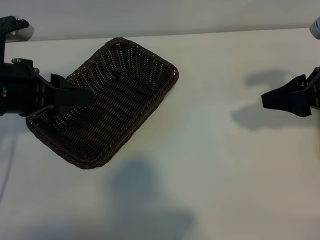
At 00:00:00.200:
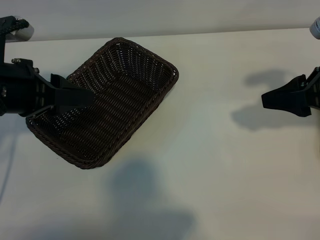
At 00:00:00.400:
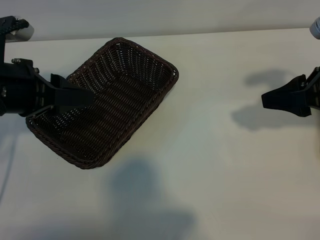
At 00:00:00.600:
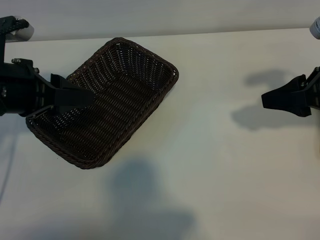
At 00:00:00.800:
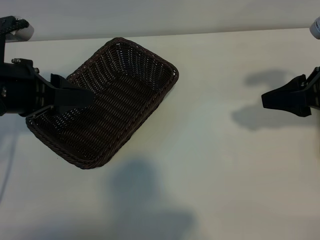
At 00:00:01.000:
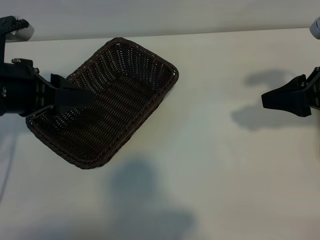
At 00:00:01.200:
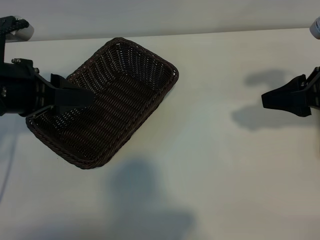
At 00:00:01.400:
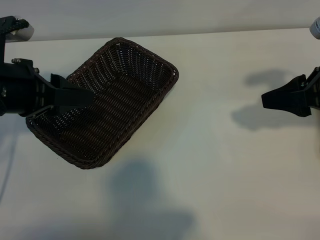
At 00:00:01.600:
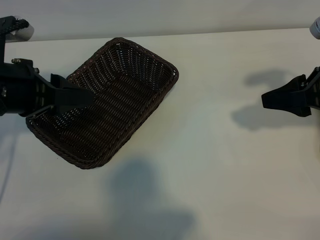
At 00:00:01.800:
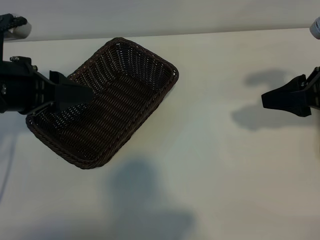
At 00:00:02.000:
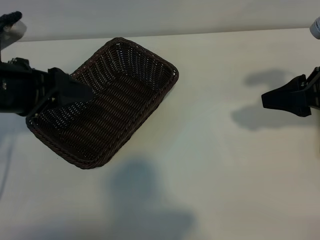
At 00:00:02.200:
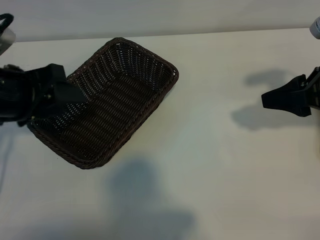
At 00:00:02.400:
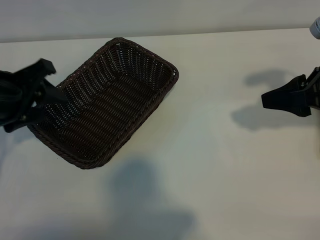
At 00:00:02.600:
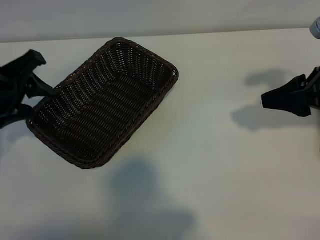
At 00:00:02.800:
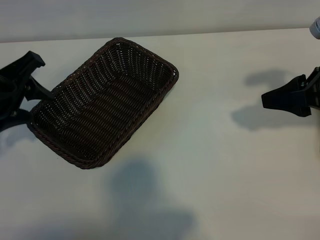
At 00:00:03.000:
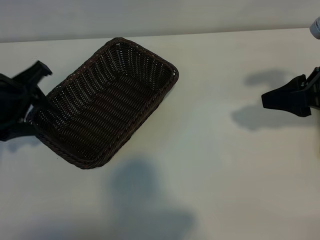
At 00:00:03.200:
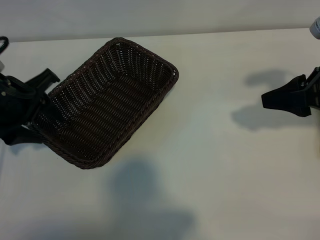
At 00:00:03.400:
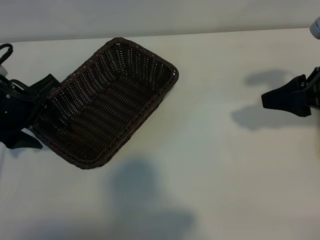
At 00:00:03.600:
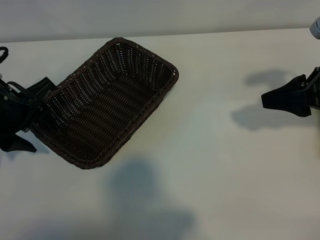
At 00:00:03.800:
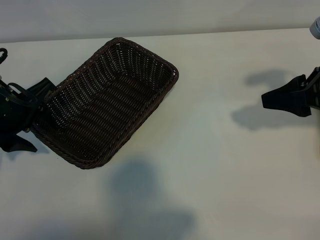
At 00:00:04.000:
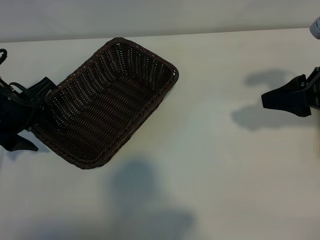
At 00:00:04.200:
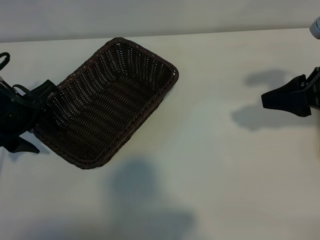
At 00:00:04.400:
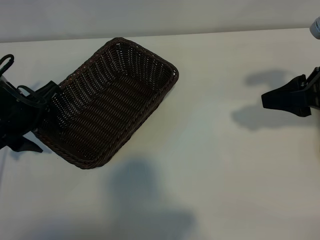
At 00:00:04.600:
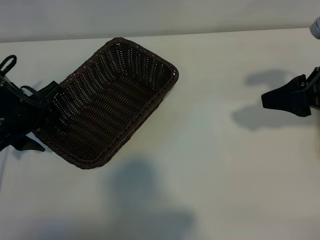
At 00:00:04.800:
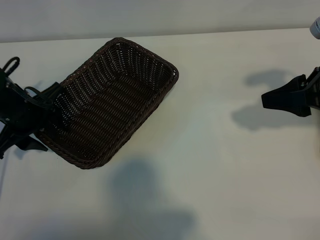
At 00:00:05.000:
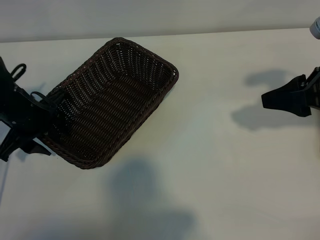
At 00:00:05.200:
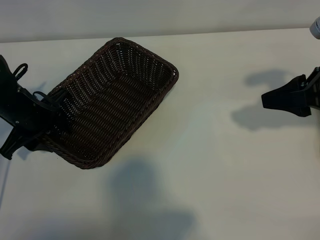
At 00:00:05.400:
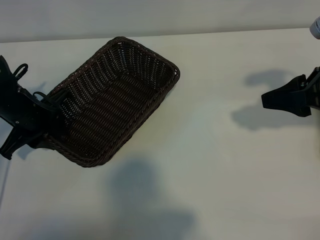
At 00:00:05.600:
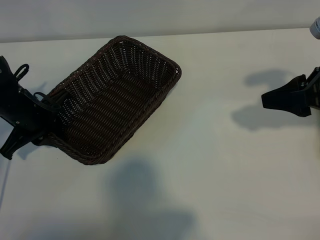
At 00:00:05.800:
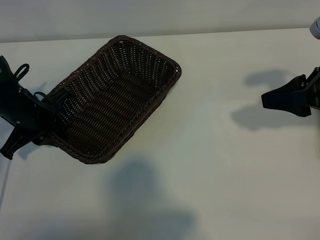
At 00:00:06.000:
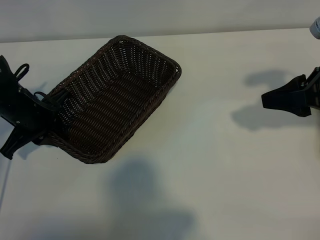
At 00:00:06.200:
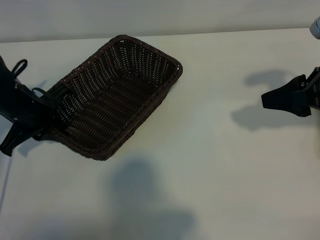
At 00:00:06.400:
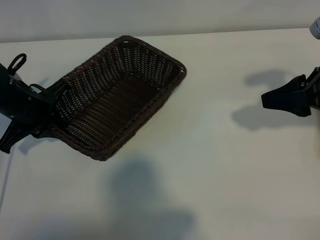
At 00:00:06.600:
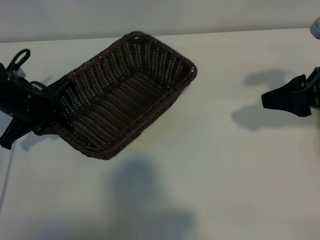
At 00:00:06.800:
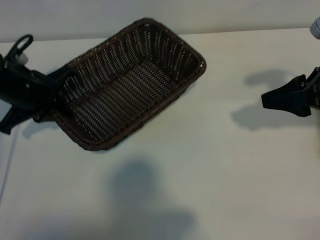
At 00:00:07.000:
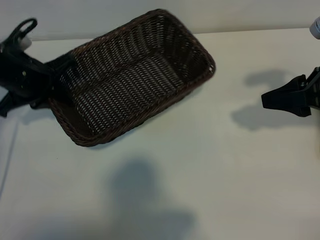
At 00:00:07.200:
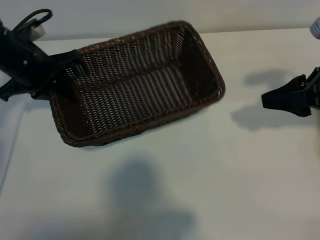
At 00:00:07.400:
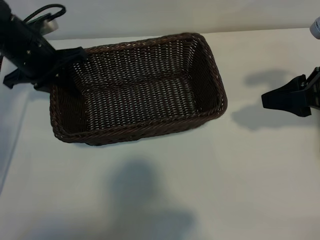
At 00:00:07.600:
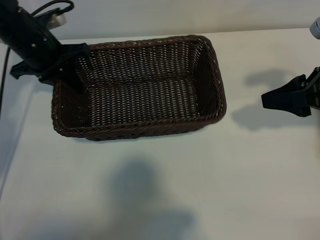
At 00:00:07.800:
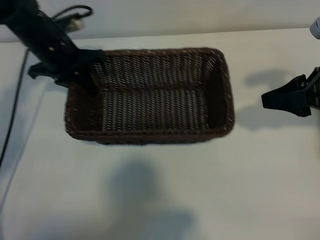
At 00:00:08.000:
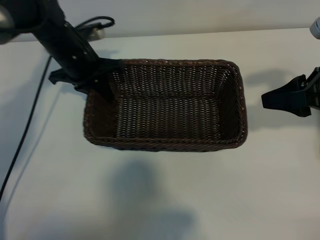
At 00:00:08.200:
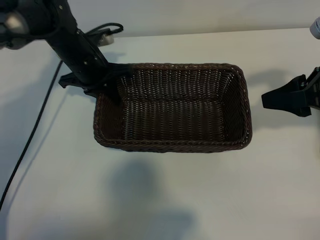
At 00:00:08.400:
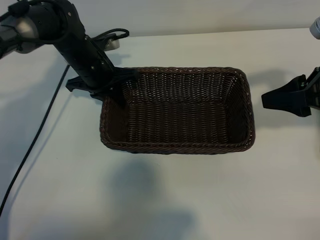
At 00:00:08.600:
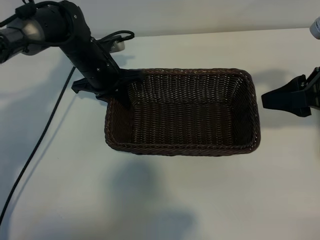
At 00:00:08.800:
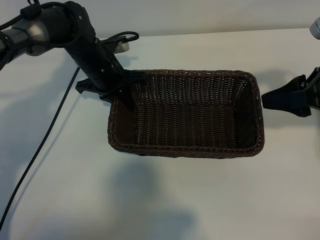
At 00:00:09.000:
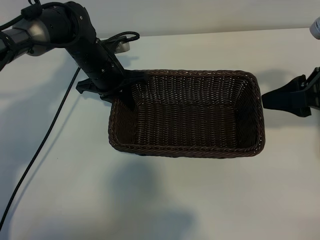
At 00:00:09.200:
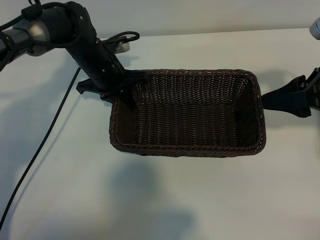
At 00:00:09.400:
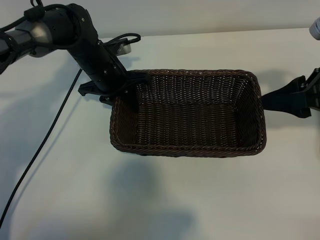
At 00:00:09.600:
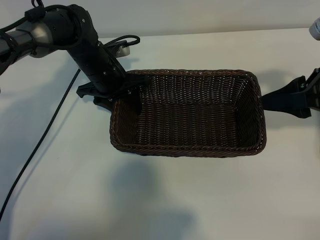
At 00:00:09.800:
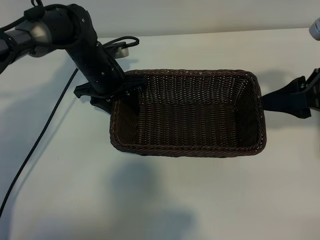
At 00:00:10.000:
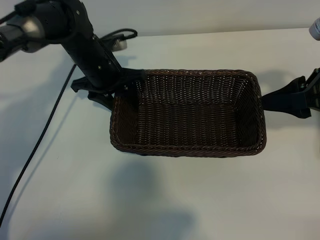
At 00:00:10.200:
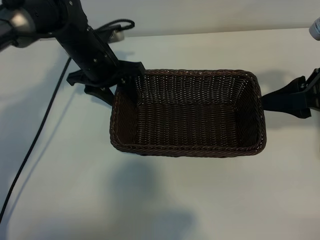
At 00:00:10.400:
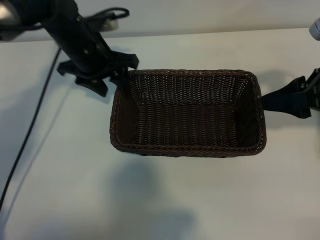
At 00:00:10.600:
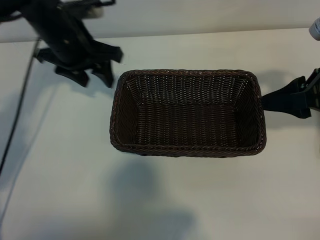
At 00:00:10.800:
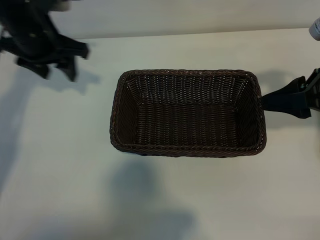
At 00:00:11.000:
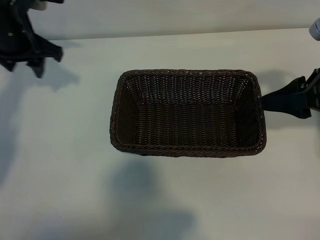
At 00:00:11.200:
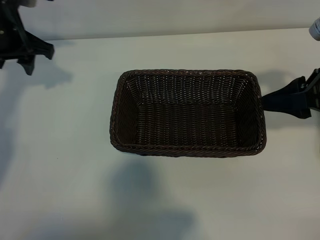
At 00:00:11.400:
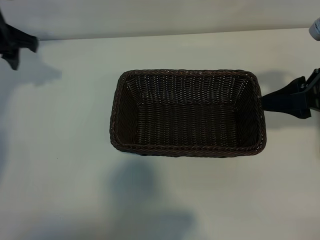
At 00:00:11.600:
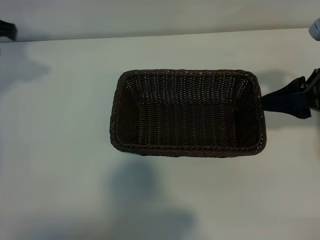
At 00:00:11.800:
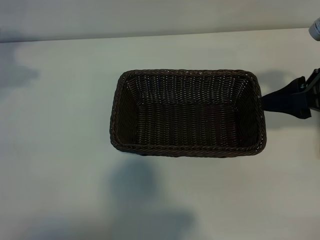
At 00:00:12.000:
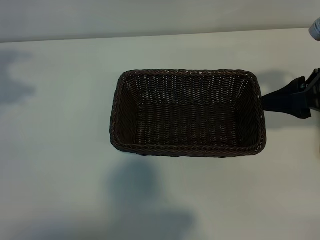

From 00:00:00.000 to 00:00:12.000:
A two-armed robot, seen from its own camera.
Task of the whole recording: pick up the banana and put it into the basket.
Step, from 00:00:01.800 to 00:00:05.600: Grasp the basket with the left gripper.
Step, from 00:00:06.000 to 00:00:10.400: Place the basket in the center of the table with the left gripper.

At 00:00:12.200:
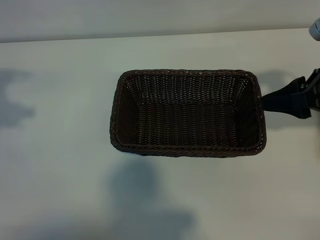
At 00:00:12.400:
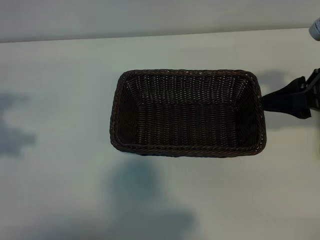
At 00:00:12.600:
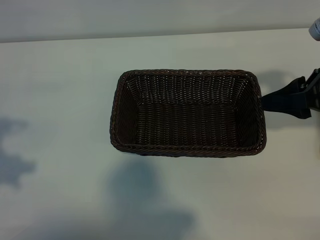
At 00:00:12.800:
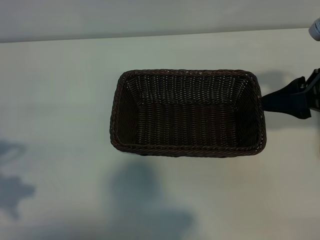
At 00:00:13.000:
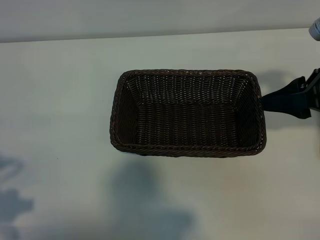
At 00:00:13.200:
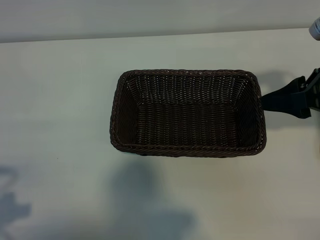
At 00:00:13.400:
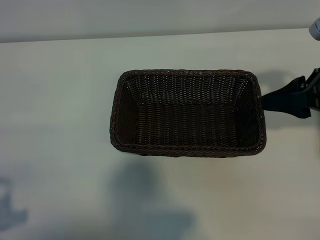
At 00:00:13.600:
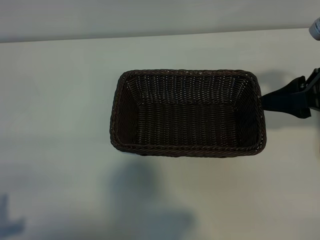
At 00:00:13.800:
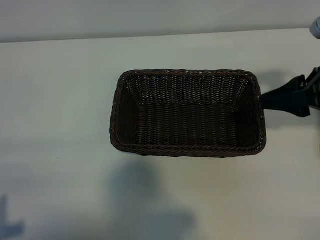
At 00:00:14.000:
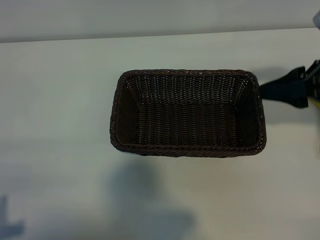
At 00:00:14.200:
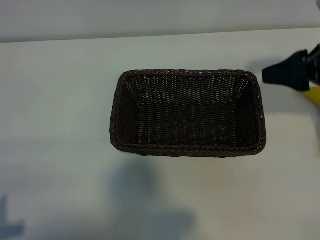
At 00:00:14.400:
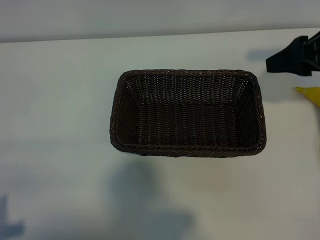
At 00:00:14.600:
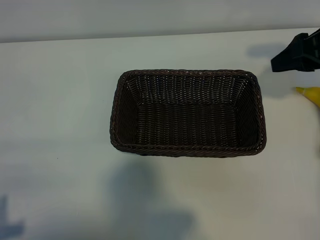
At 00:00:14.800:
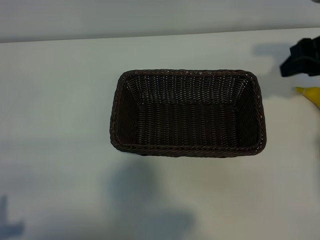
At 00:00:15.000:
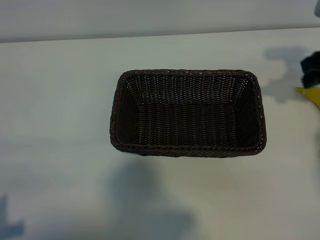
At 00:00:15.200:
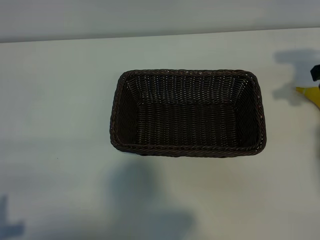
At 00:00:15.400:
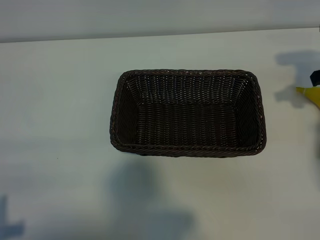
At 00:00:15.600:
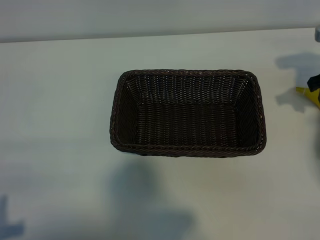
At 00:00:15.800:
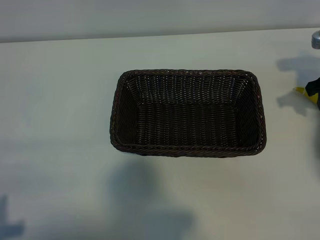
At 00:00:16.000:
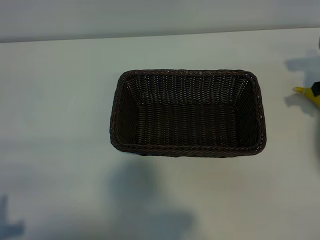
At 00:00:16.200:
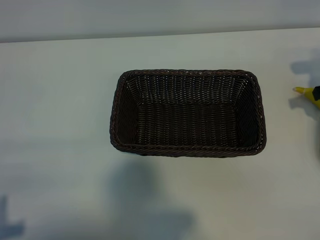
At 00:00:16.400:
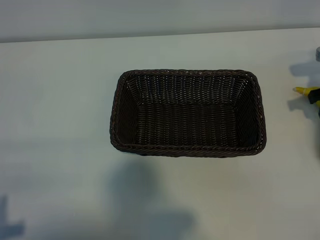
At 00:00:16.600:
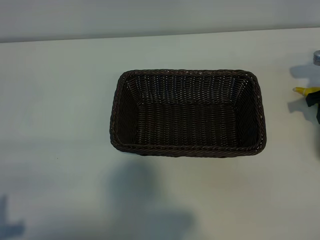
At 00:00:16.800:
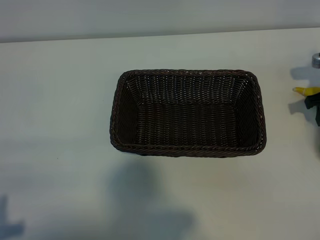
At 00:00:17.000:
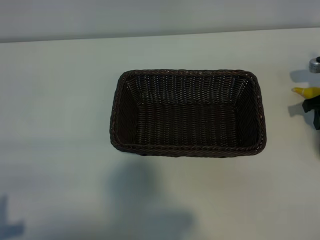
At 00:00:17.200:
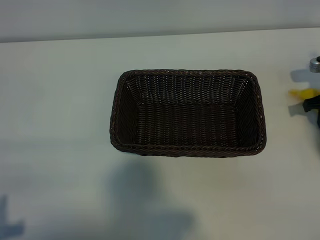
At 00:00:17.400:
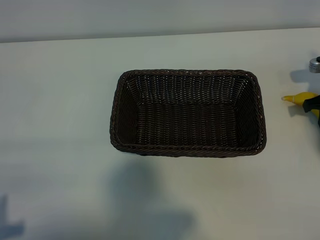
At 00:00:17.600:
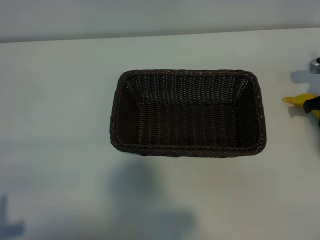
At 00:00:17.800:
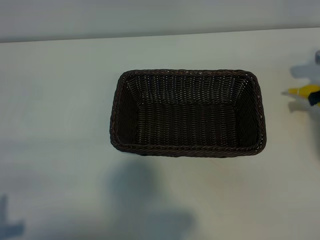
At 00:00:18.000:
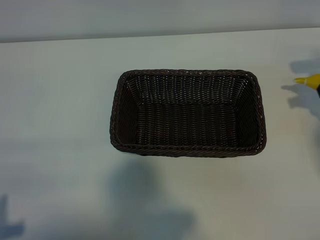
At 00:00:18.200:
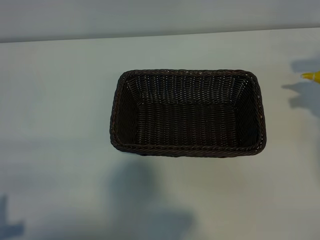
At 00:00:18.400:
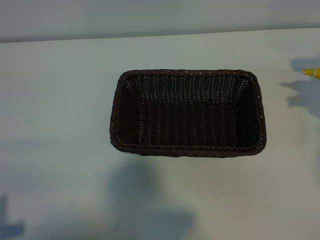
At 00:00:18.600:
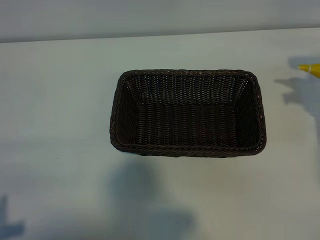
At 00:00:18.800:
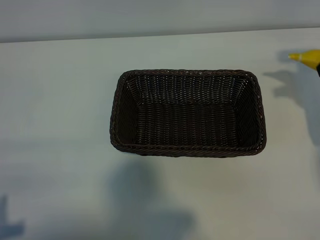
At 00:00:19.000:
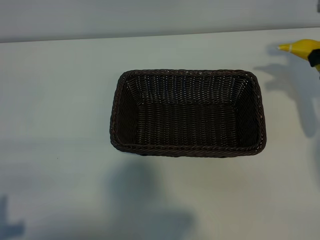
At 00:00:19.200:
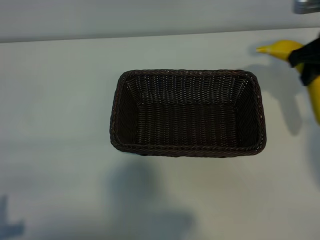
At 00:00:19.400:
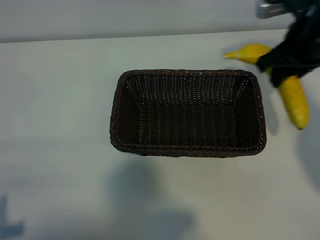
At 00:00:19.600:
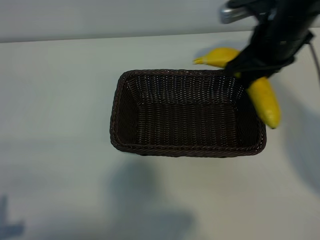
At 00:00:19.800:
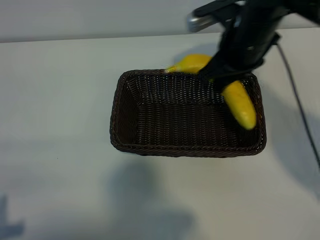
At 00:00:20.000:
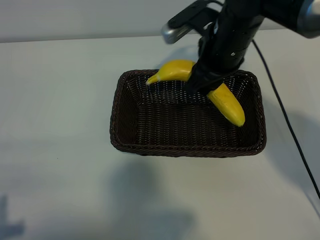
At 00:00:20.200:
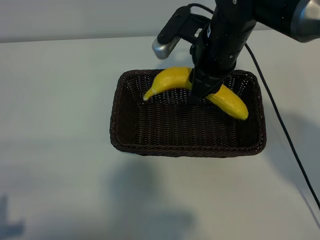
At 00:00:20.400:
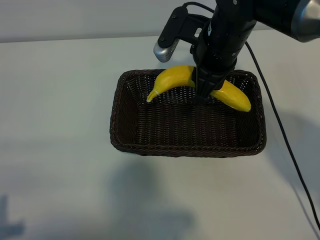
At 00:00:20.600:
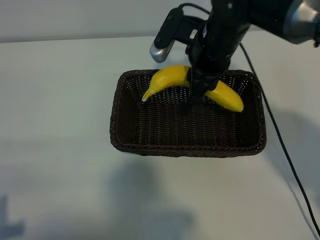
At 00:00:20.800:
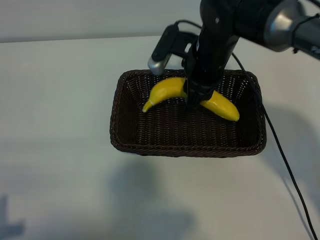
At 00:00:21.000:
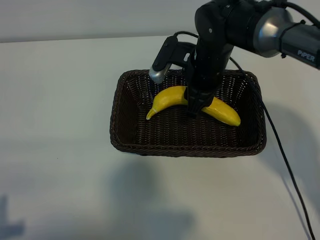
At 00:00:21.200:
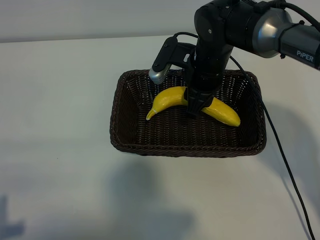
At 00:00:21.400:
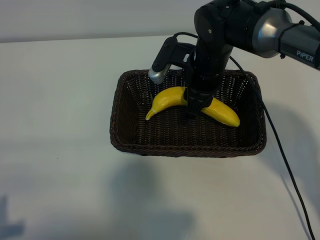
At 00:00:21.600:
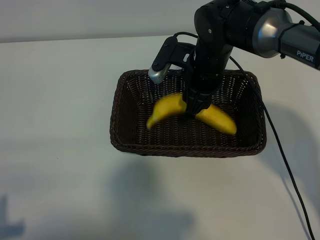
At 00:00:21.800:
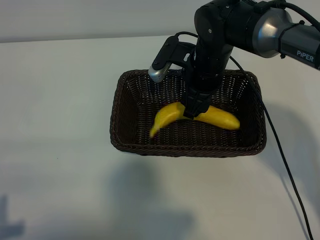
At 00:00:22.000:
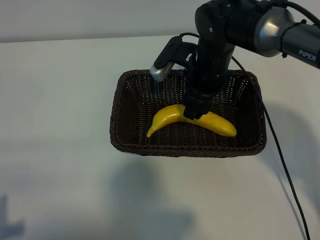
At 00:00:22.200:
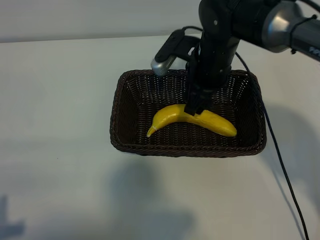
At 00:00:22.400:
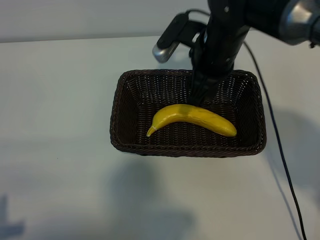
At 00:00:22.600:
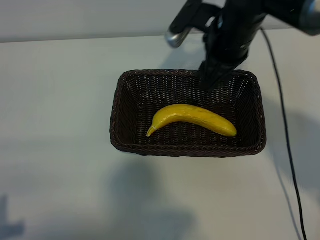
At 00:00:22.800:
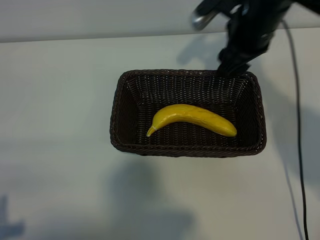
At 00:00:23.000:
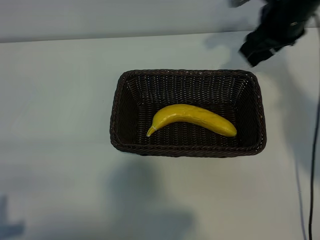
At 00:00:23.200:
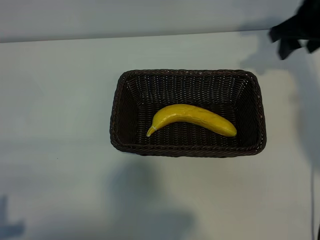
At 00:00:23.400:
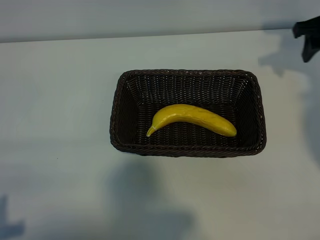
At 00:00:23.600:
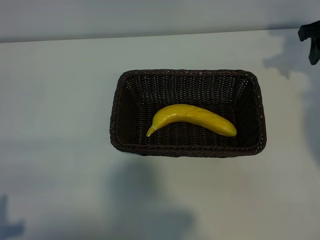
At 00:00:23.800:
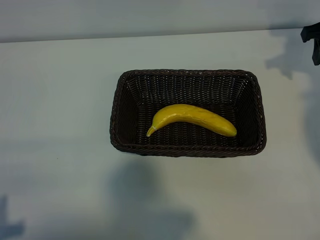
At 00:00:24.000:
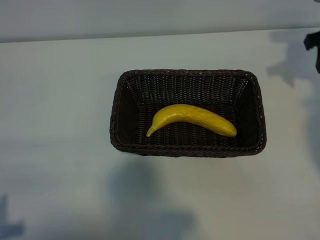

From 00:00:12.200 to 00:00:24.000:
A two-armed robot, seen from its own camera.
Task of the whole recording: pick up the banana and put it into the basket.
Step, from 00:00:12.200 to 00:00:17.600: Grasp the banana with right gripper.
Step, from 00:00:17.800 to 00:00:22.200: Place the banana in the basket with right gripper.
